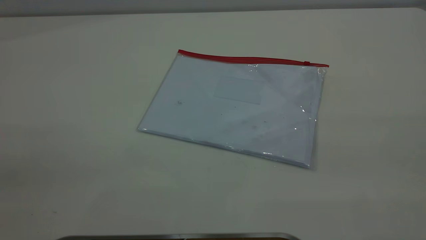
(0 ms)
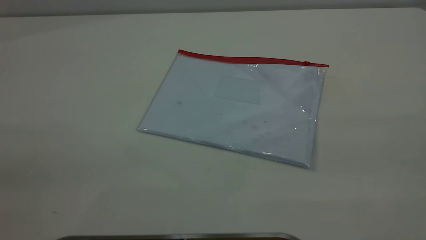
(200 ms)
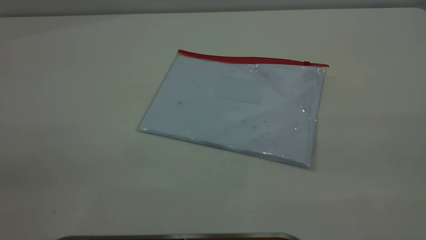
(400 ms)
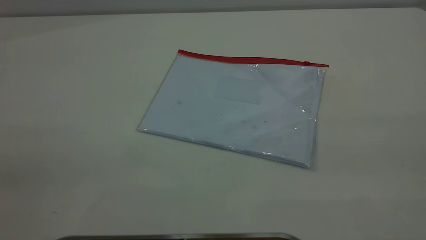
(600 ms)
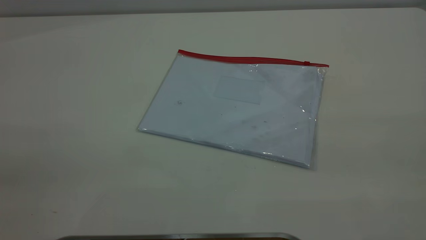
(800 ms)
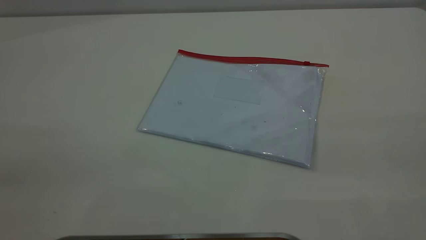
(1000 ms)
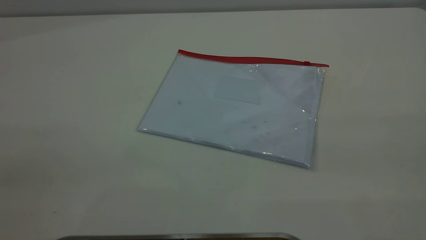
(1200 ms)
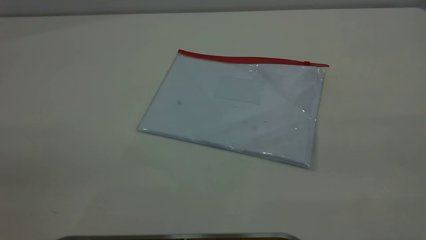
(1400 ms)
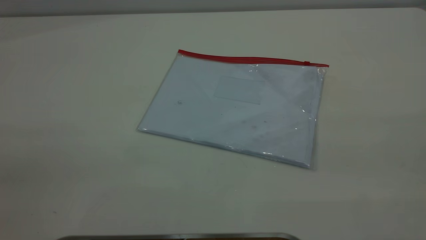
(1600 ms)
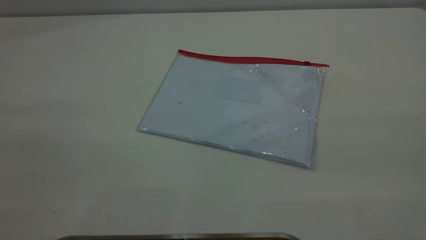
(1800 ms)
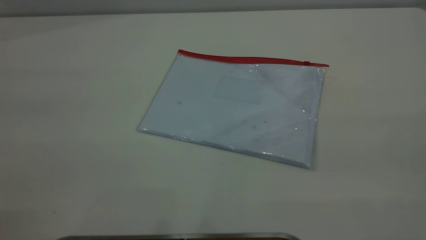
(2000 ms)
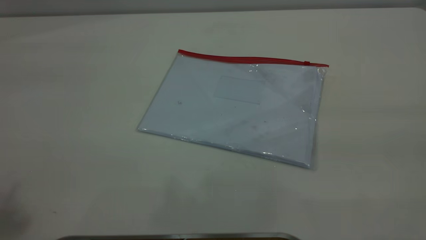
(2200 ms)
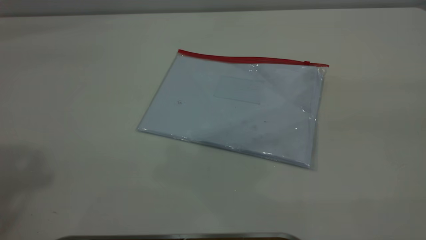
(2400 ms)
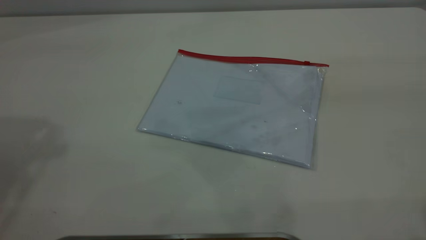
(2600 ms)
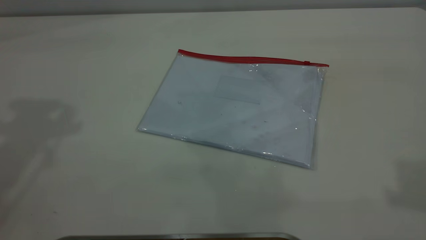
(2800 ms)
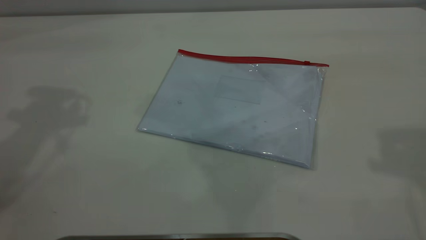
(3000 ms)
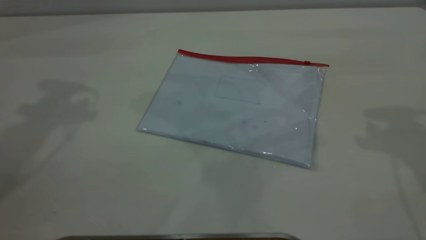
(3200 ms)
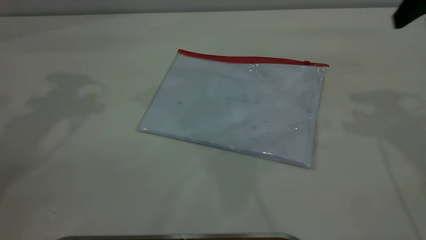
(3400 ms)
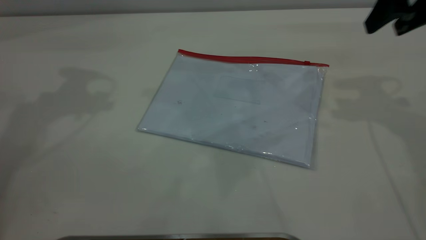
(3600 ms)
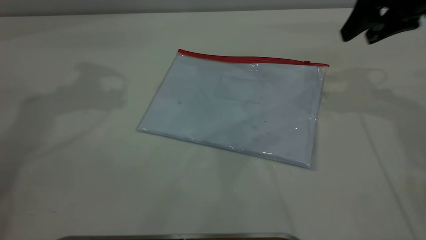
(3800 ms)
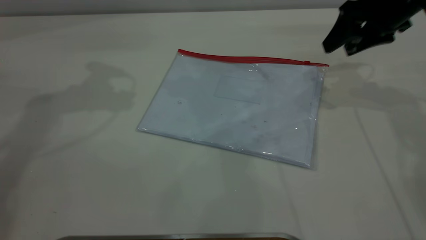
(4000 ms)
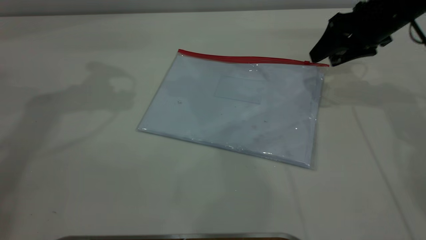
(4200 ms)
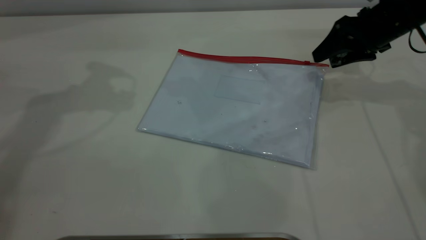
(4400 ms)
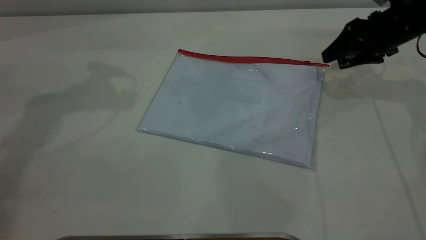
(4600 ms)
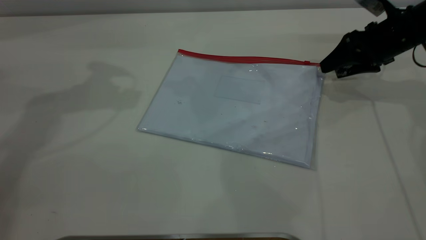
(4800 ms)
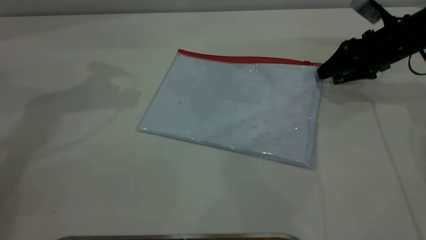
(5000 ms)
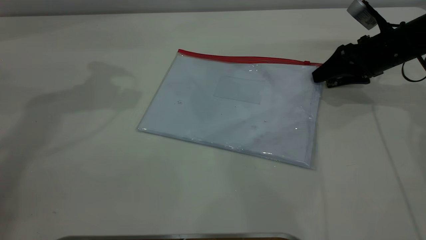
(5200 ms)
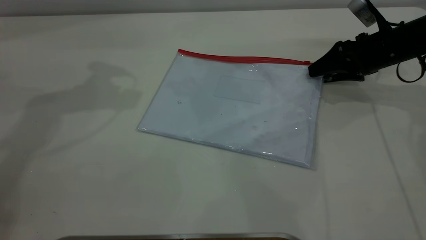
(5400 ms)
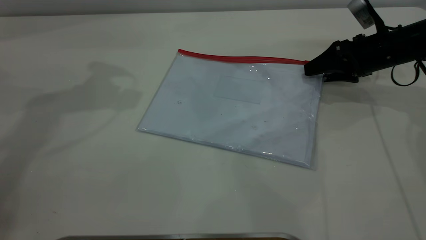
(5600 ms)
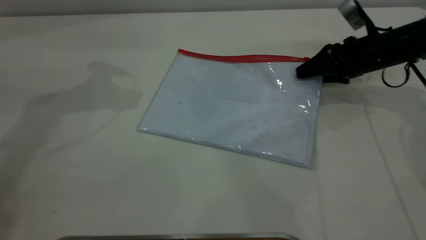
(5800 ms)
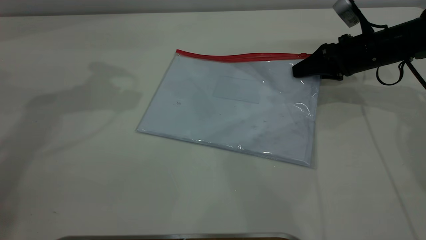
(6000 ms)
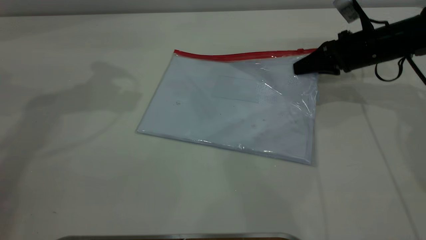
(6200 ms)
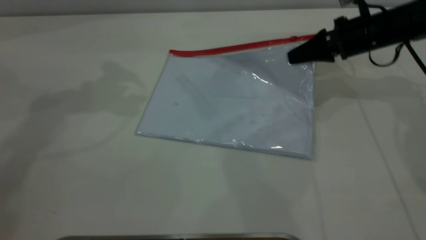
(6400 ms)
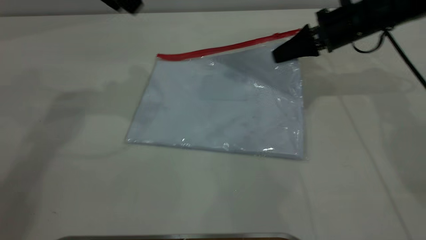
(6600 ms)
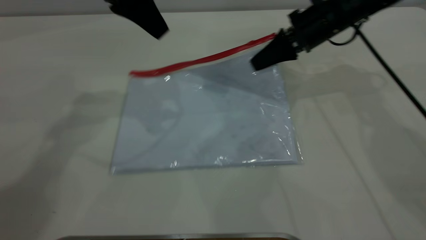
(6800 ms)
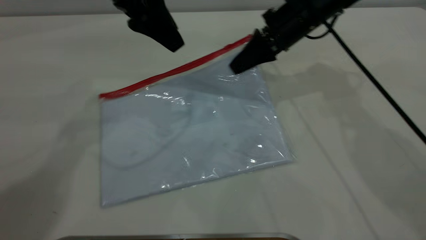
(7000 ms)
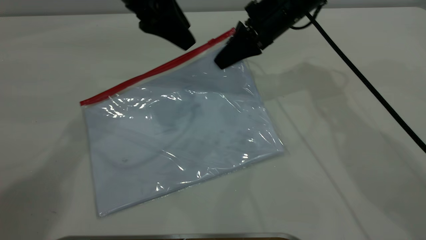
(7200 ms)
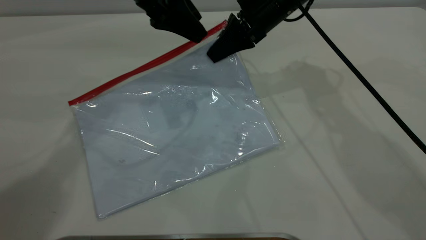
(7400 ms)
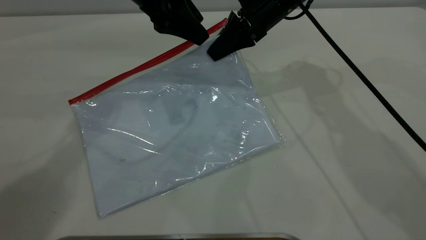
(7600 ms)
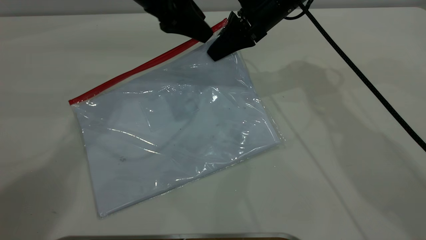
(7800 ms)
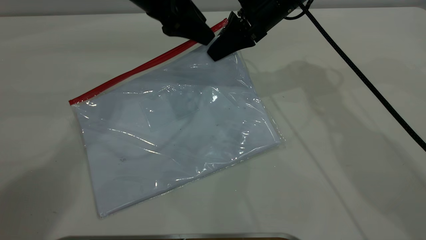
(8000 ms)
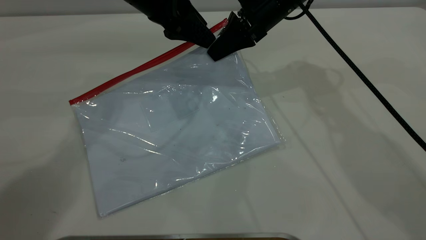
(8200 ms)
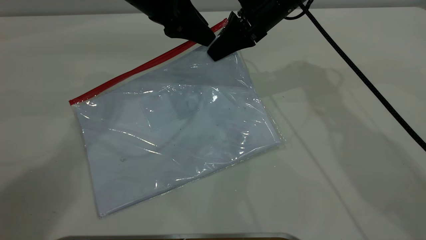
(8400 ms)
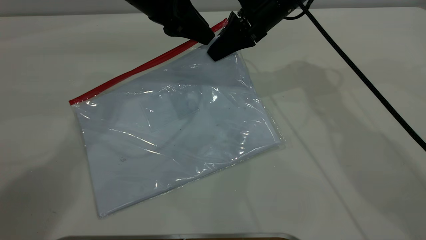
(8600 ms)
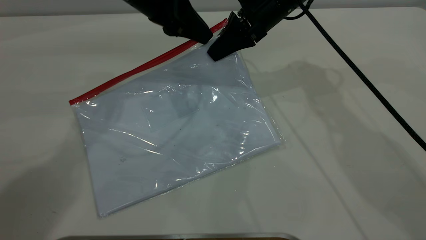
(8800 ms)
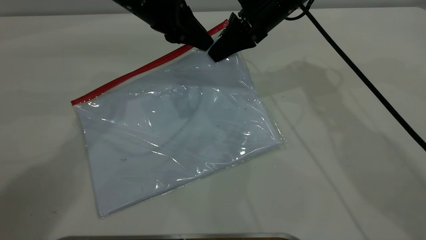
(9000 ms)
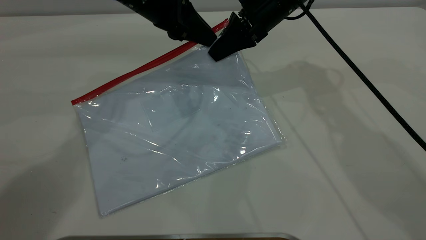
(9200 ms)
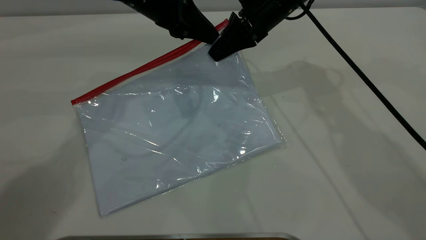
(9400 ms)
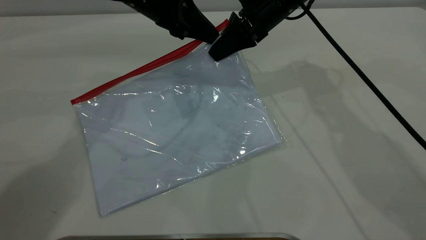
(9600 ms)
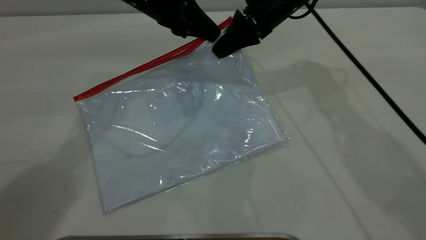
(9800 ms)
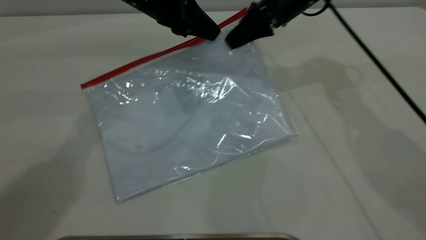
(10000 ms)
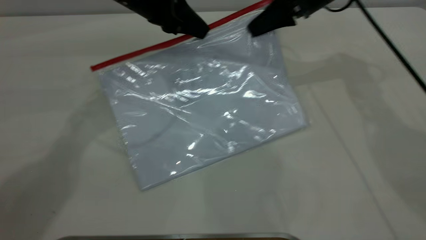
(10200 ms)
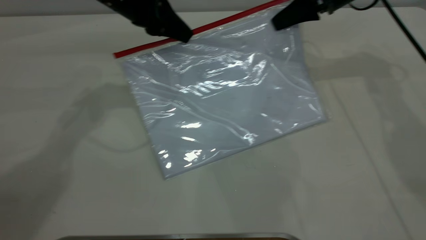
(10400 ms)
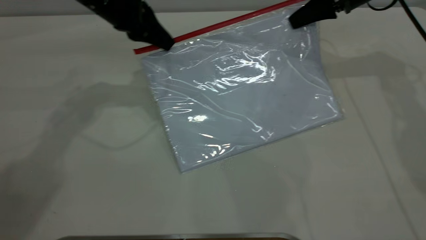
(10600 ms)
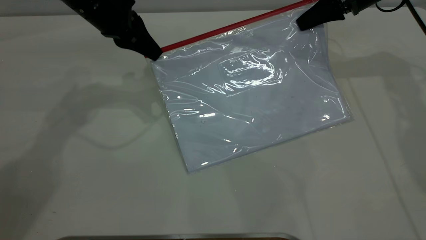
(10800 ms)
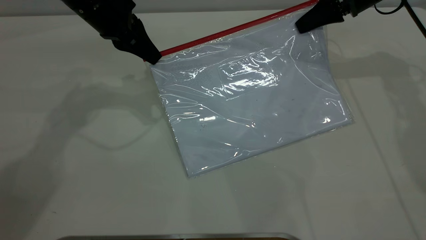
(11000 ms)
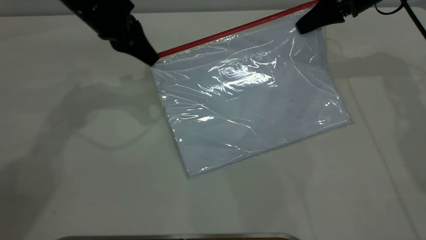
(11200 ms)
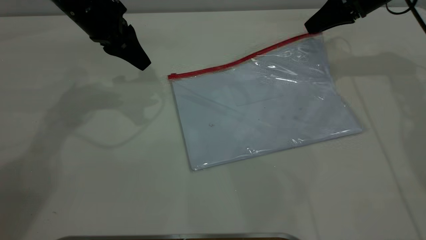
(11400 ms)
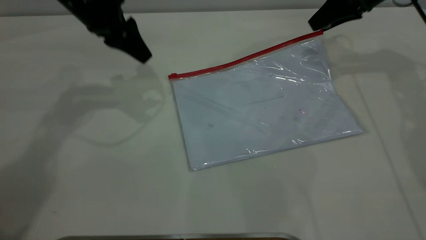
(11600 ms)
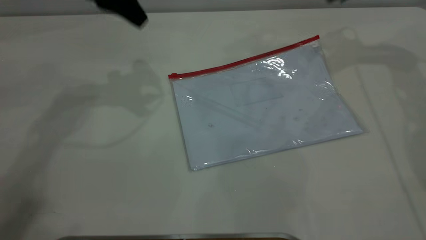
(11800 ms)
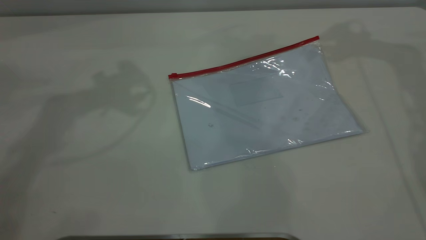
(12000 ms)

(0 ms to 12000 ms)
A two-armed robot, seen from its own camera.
Step, 0 ms - 6400 ms: Pick up the transparent plastic bag with the right gripper.
Step, 6800 ms - 11400 ms: Pulling up the zipper on the transparent plastic bag with the left gripper to close it.
0 ms - 1600 ms: Neither gripper changes place.
3000 ms - 4400 ms: The right gripper moves downward and forward, about 30 cm.
4400 ms - 6000 ms: The right gripper travels downward by roughly 5 cm, and closes.
6000 ms - 7600 ms: The left gripper goes some 15 cm to the right and downward; the right gripper heads to the left and upward, covering some 20 cm, and closes its fingers.
7600 ms - 9000 ms: The left gripper closes up.
9000 ms - 10400 ms: The right gripper travels to the right by about 15 cm.
10400 ms - 12000 ms: Both grippers move upward, about 20 cm. The left gripper opens up, while the right gripper opens up.

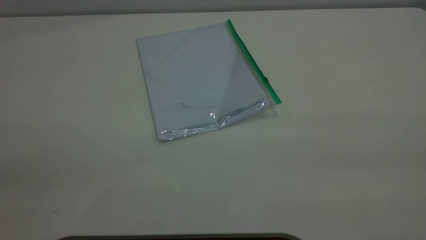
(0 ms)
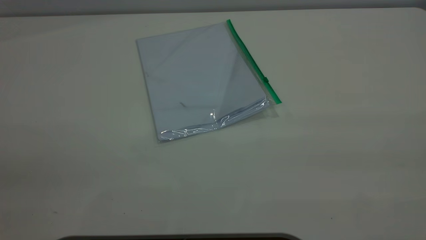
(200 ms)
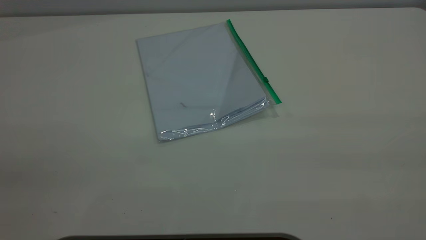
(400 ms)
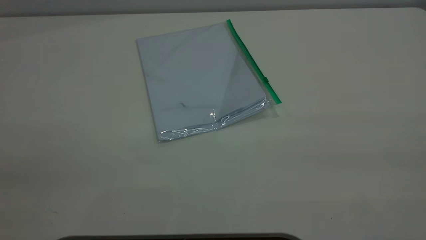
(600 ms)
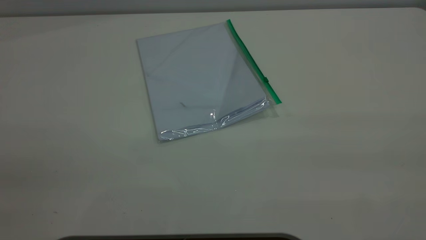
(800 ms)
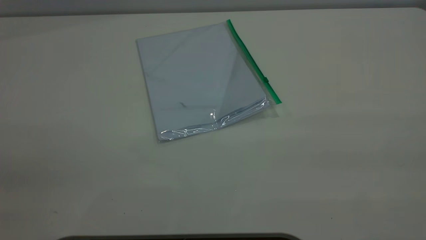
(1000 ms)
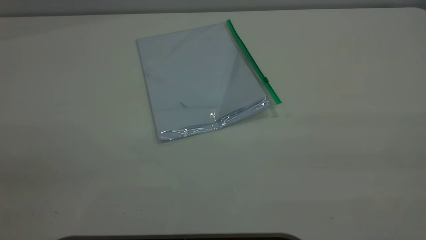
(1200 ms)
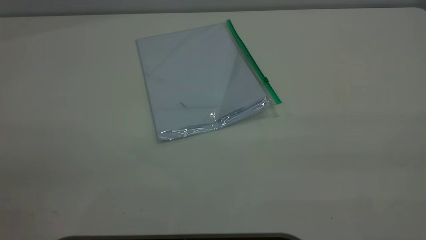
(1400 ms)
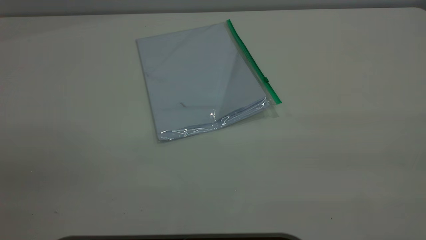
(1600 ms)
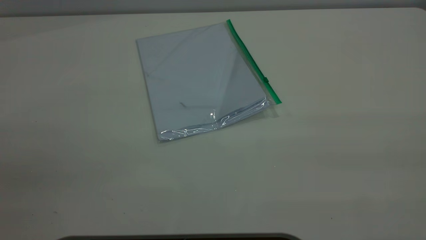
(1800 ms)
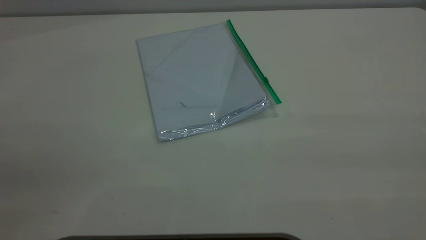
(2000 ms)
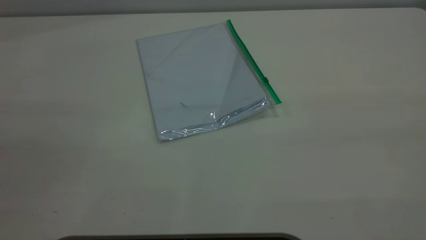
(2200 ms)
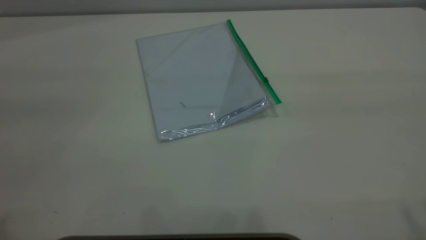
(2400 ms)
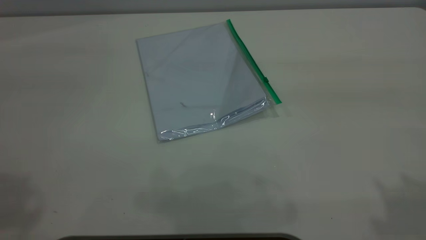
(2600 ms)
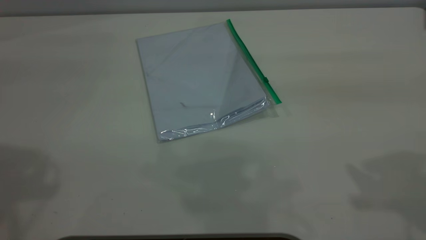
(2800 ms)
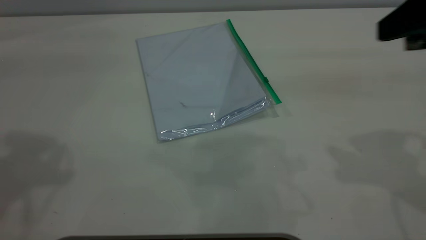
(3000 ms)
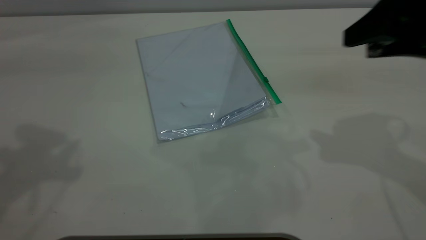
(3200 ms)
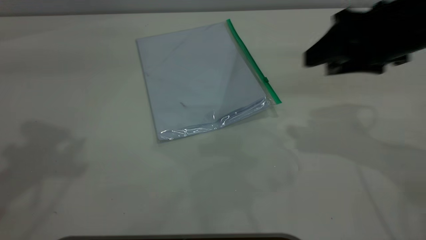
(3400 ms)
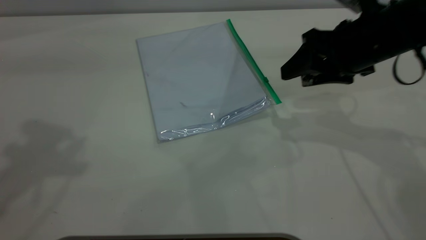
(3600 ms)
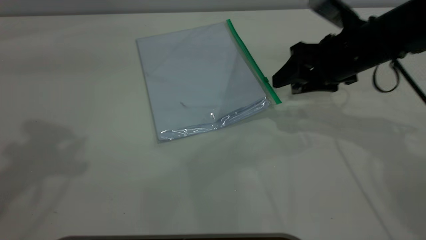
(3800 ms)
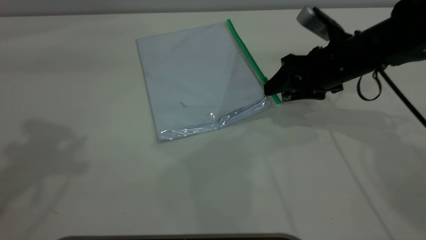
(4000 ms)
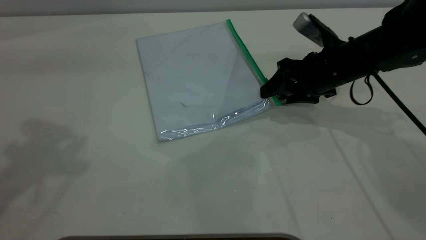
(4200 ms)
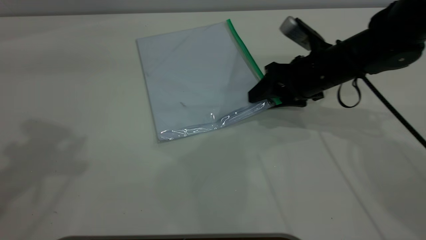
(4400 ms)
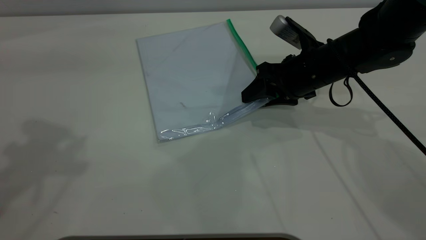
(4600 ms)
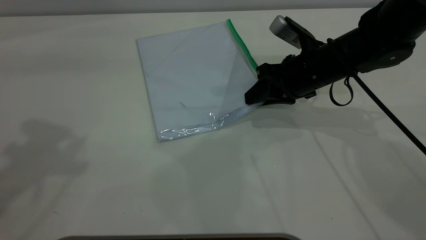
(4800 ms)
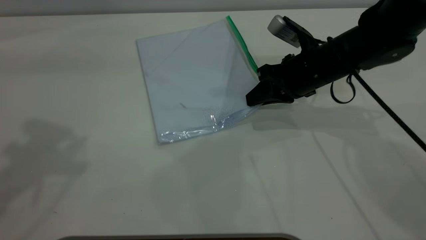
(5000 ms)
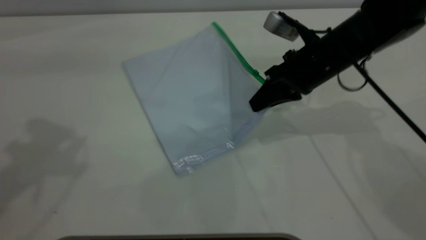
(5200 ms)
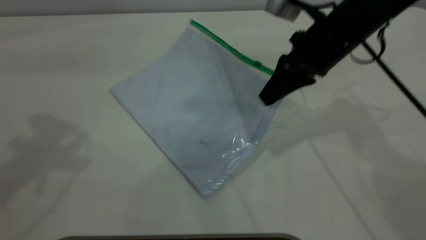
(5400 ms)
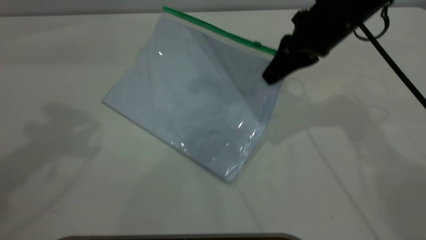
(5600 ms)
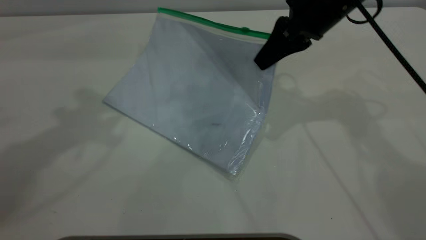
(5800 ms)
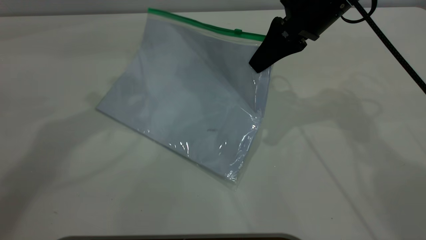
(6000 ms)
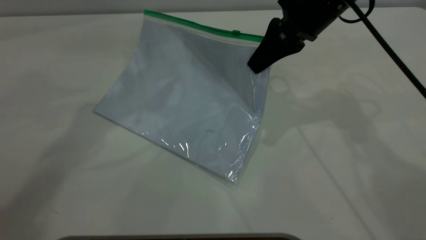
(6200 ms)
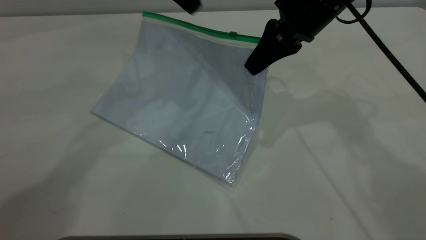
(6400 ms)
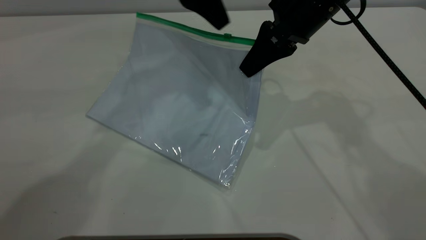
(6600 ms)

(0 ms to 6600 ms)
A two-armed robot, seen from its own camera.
Step, 0 ms - 5000 ms: Pick up the transparent plastic bag with the right gripper.
0 ms - 1600 ms: Neither gripper changes place.
1600 ms - 3200 ms: The right gripper heads forward and downward, covering approximately 30 cm.
3200 ms - 5000 ms: The right gripper goes some 20 cm downward, to the left and forward, and closes up.
5000 ms - 6600 ms: The right gripper is displaced upward by some 10 cm, while the left gripper is displaced to the right, forward and downward by some 30 cm.
